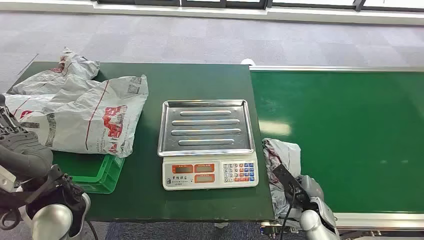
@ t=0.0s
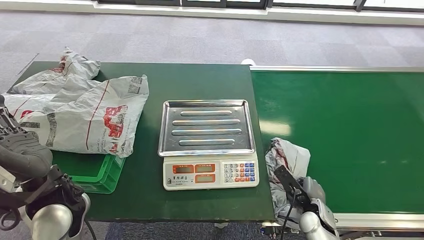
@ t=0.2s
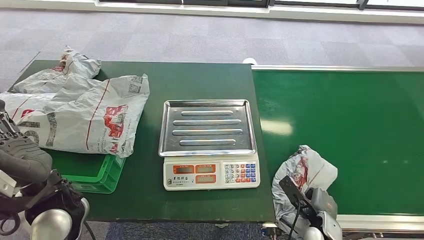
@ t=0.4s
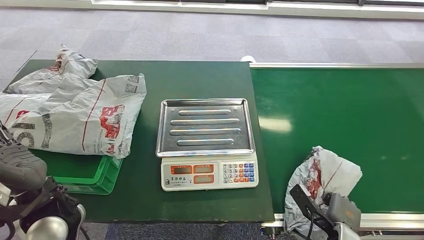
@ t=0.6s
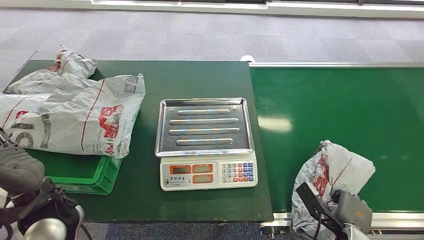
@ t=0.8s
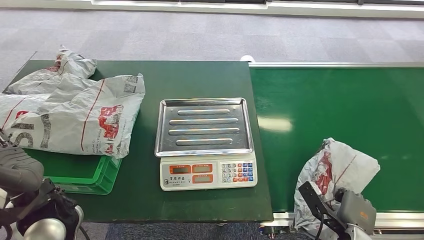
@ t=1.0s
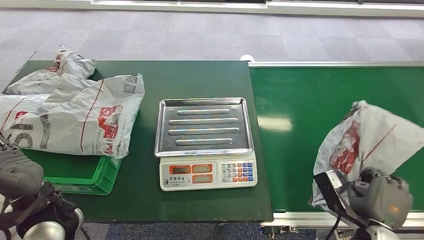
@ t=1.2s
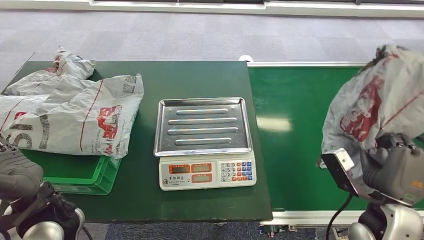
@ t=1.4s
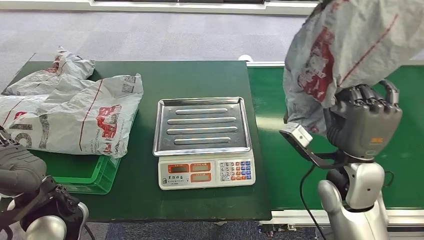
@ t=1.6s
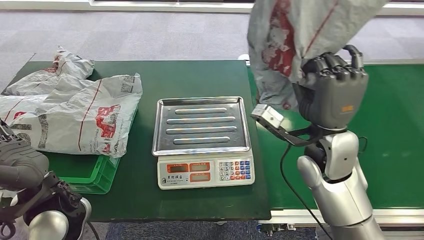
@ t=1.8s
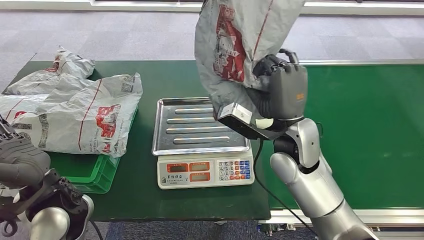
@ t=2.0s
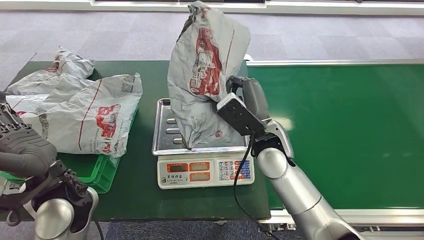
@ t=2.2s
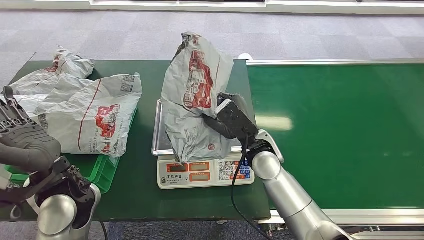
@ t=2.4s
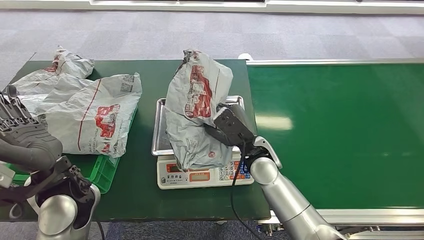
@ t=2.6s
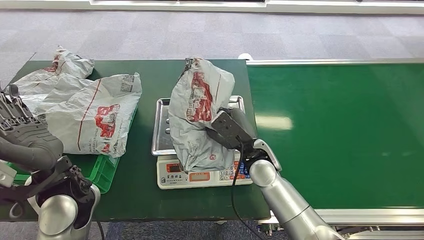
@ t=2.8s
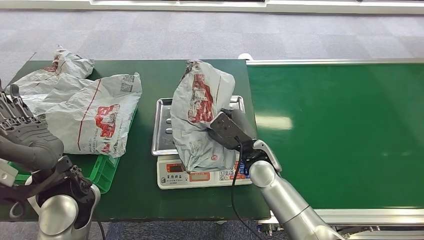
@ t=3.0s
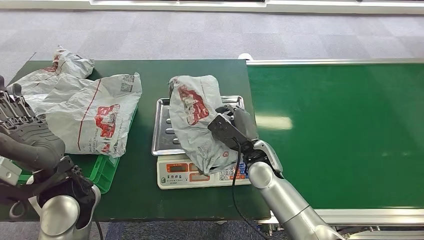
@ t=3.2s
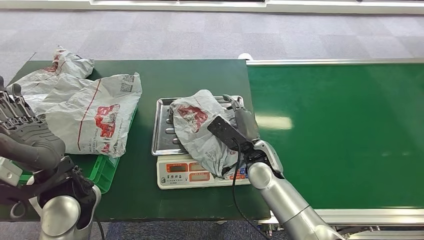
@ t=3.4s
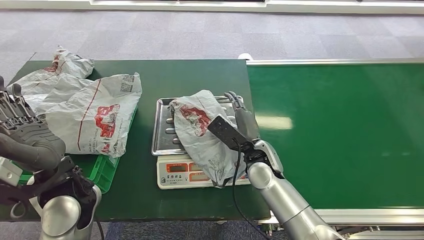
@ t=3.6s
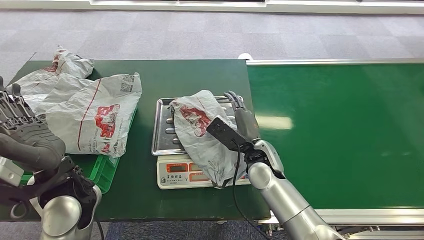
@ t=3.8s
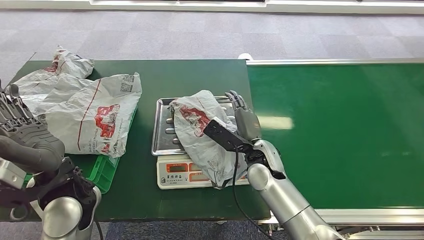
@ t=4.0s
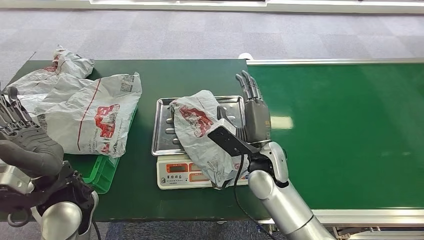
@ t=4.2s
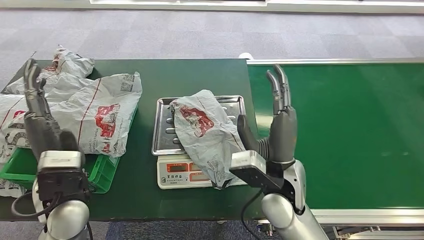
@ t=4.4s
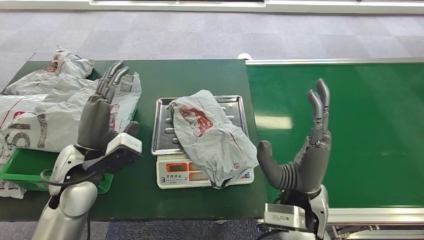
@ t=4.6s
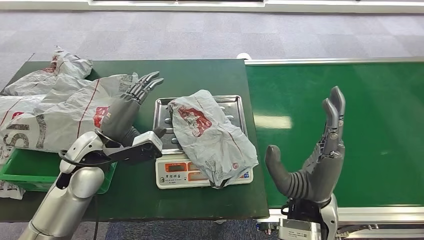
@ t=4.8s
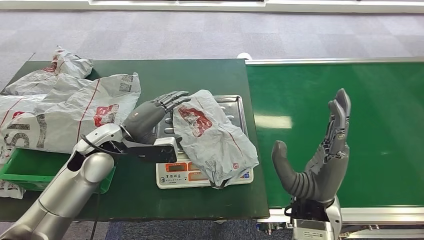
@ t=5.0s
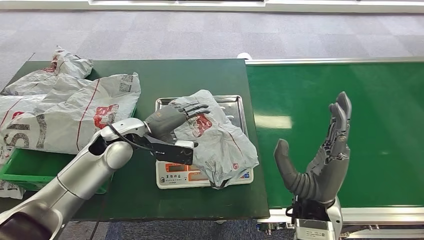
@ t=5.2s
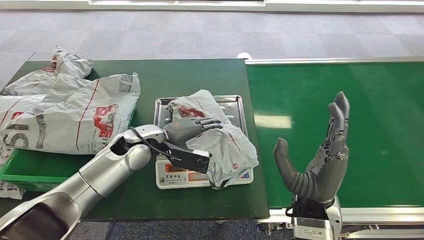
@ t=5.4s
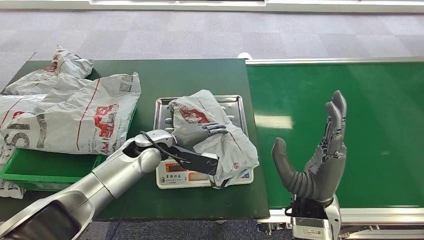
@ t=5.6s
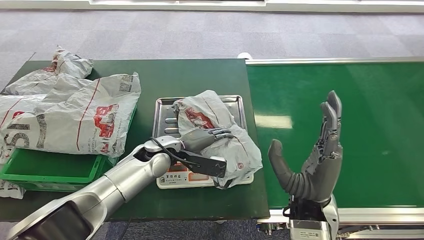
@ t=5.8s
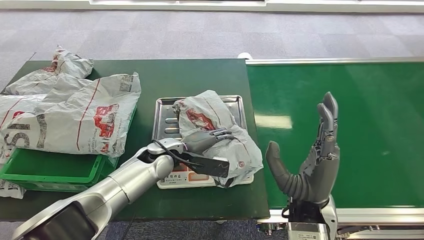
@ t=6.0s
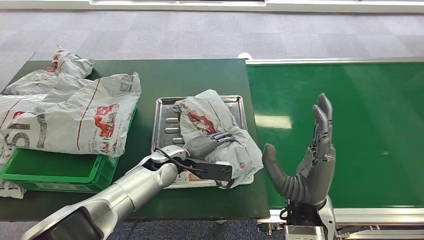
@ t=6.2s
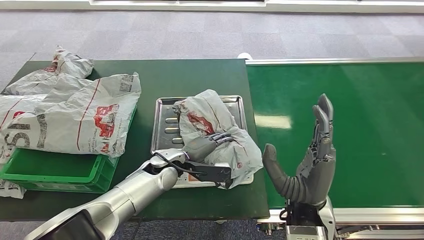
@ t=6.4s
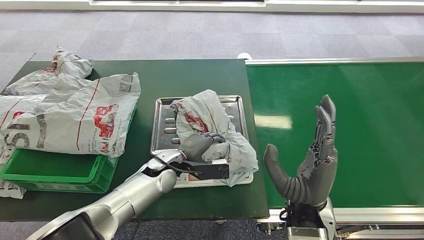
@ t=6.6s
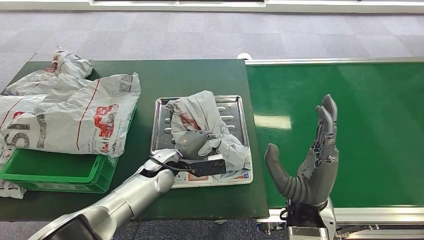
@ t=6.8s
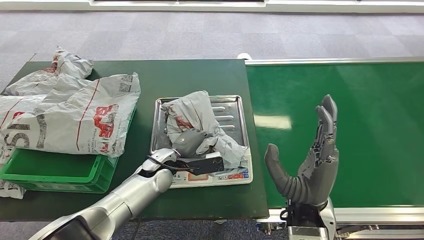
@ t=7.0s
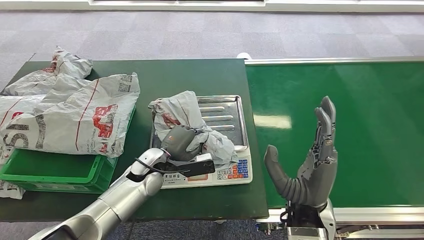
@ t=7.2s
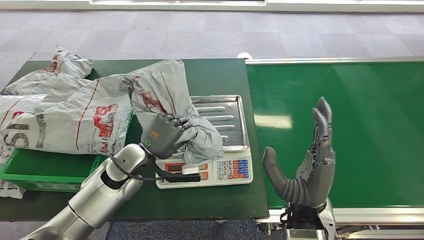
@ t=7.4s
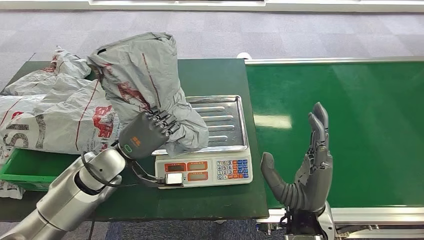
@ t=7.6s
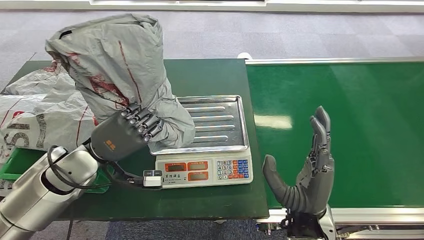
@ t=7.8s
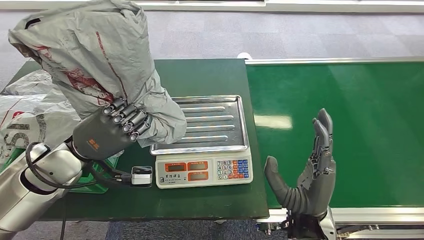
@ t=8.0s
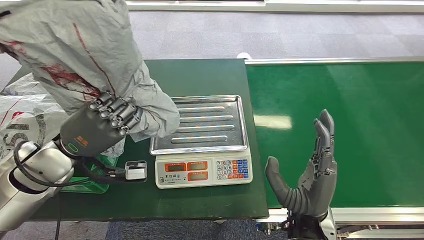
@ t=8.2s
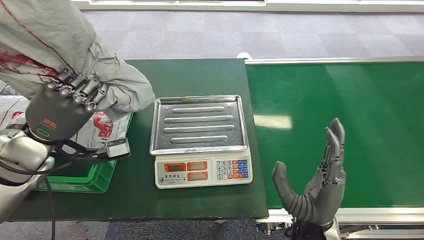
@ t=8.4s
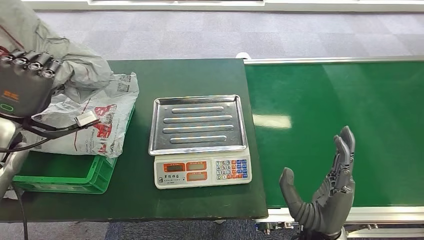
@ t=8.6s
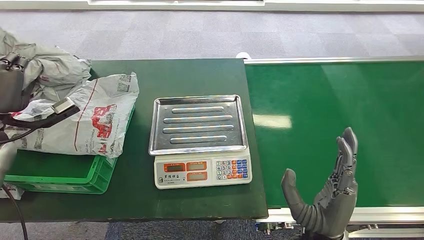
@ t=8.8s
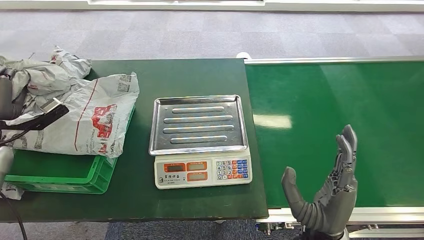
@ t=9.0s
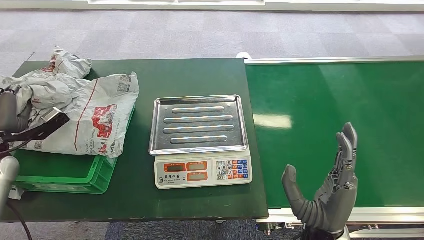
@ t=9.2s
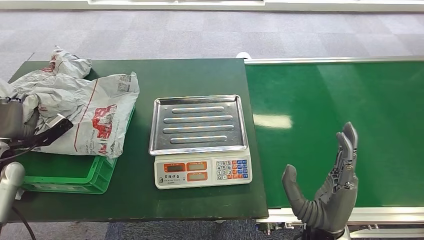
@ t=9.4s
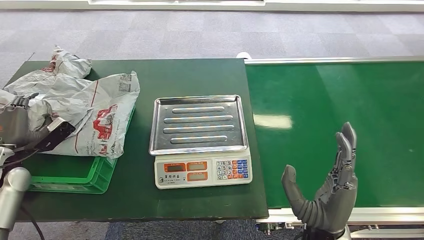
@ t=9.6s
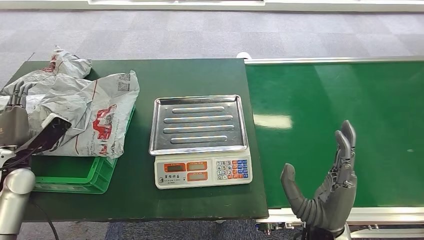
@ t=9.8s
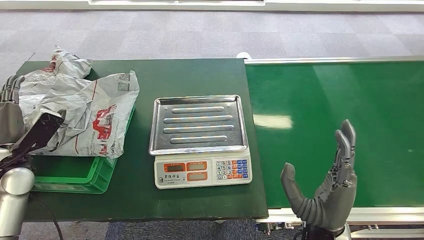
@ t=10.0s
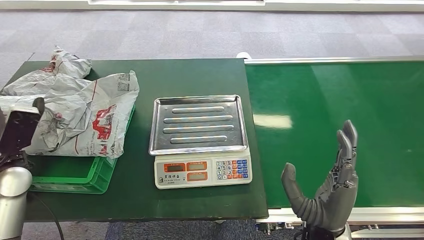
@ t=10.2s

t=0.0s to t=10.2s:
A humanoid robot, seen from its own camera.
Task of the whole recording: Weigh the package on the weighing device and place it in the left basket.
Step, t=0.0s to t=1.4s: Pick up the package from the conveyor belt.
Step, t=1.6s to t=4.2s: Place the package onto the inbound machine.
Step, t=4.4s to t=8.0s: Pick up the package from the inbound machine.
Step, t=8.2s to t=10.2s: Place the package into the parcel locker.
t=5.8s to t=7.2s: The left hand ends up some 5 cm from where it was.
t=8.8s to t=10.2s: The left hand heads downward, covering about 10 cm.
